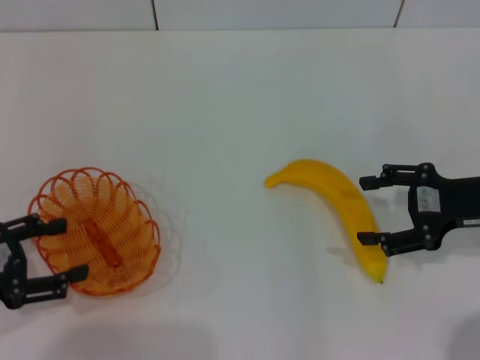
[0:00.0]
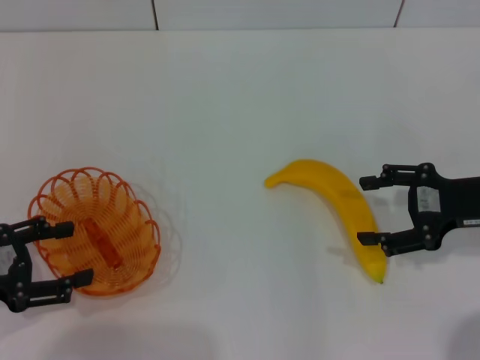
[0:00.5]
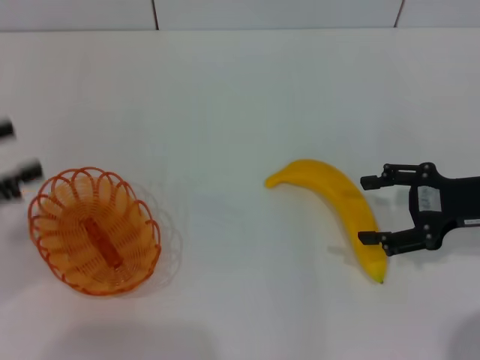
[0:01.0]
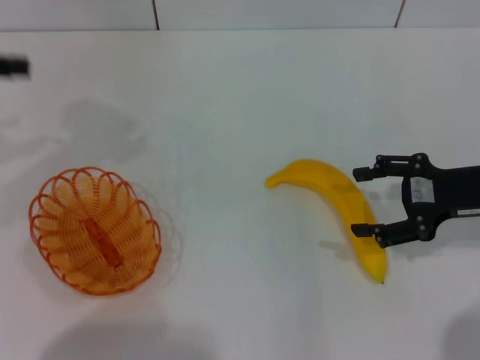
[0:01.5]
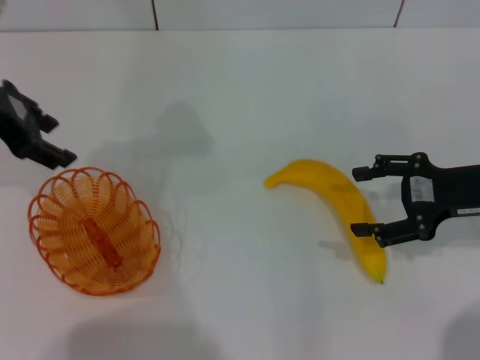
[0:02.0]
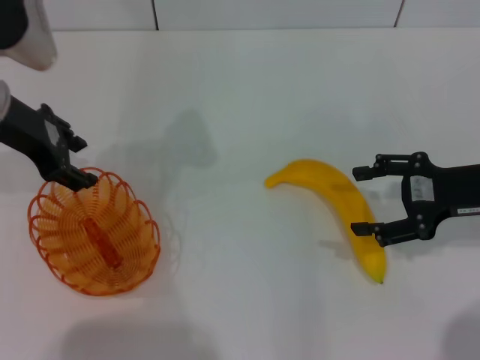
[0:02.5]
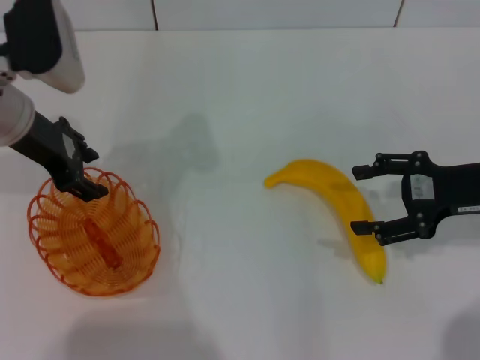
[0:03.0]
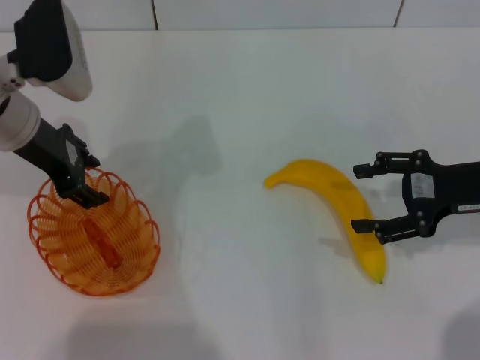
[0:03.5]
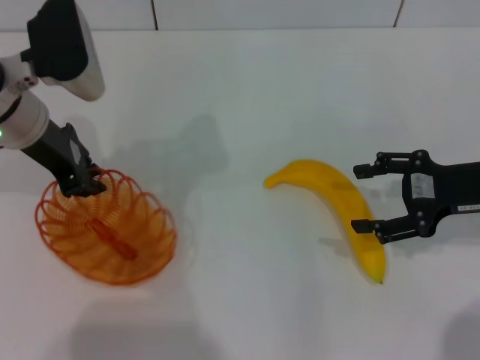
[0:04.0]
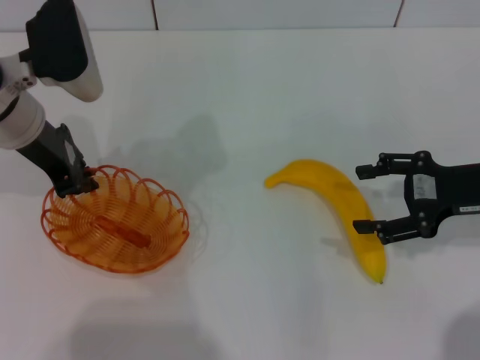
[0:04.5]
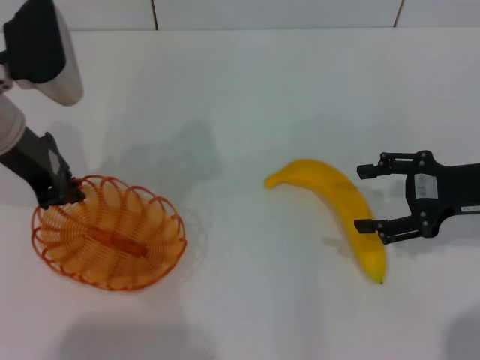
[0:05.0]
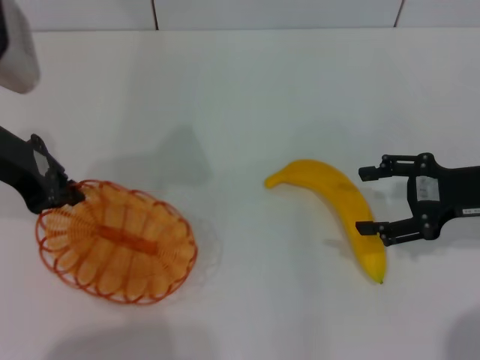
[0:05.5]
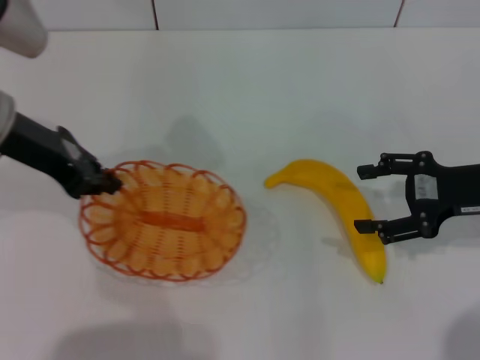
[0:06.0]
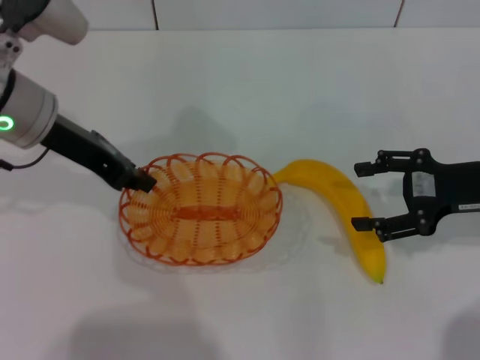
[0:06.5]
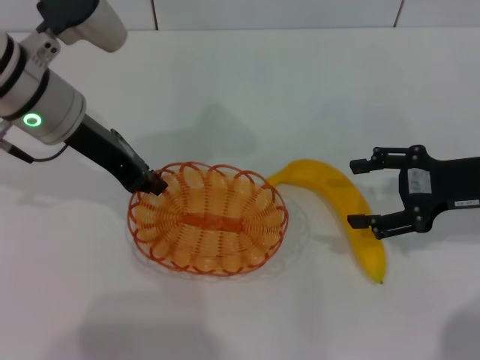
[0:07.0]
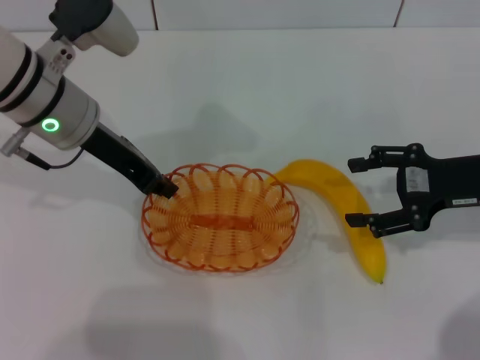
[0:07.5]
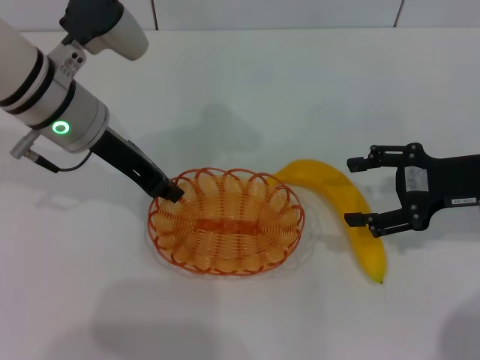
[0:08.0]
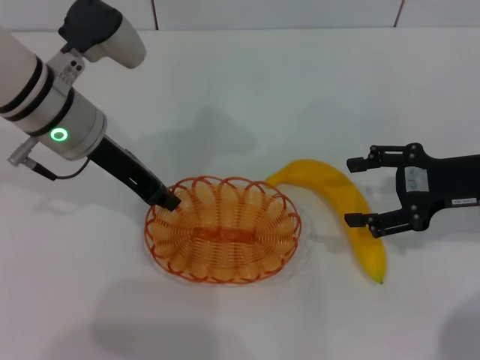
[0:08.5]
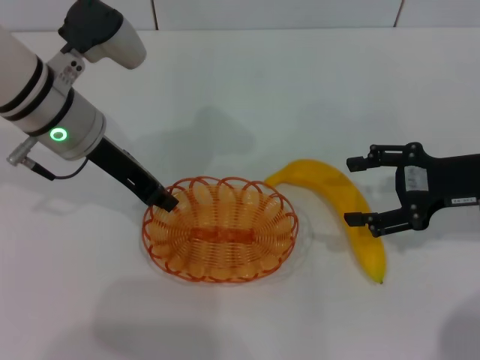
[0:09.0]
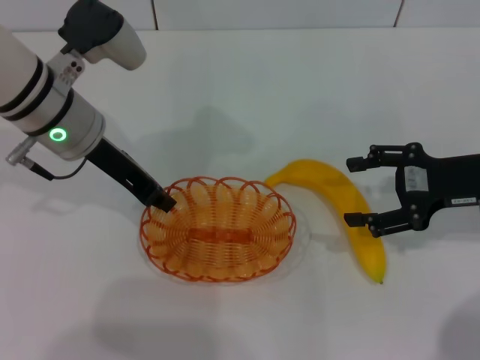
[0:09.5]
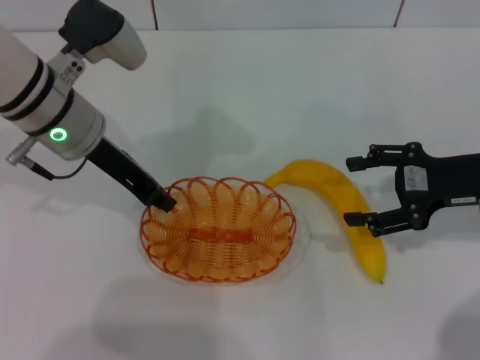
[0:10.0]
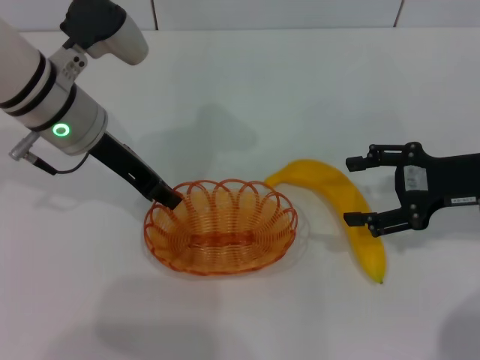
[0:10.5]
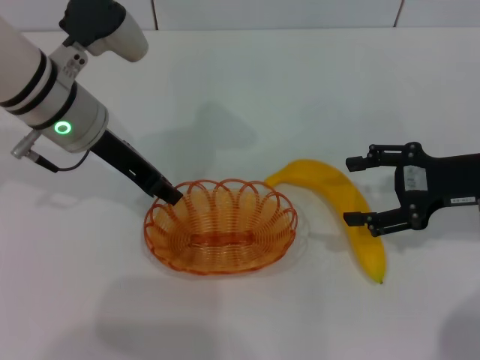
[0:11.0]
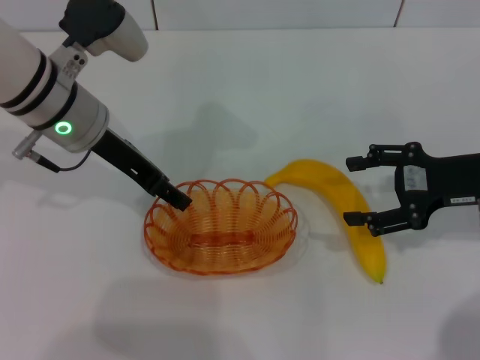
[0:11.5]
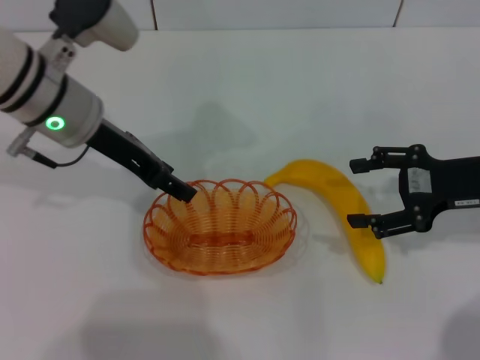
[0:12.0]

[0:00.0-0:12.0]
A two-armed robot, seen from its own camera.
Step, 0:00.0 to 0:05.0: Pick up the basket with the left gripper.
Step, 0:05.5 to 0:11.5: Place the basket in the center of view with the left gripper.
0:00.0 to 0:02.0: The left gripper is displaced forward, upward and to the right by some 25 cm.
0:02.0 to 0:04.0: The left gripper goes some 10 cm downward and to the right.
0:04.0 to 0:06.0: The left gripper ends up roughly 5 cm from where it was, and closes.
0:06.0 to 0:08.0: The left gripper is displaced to the right by about 5 cm.
0:08.0 to 0:10.0: The two grippers keep their place.
0:10.0 to 0:12.0: The left gripper opens up.

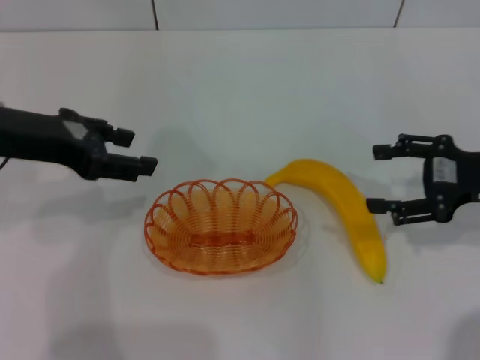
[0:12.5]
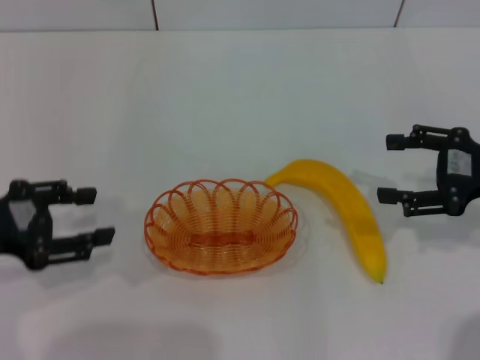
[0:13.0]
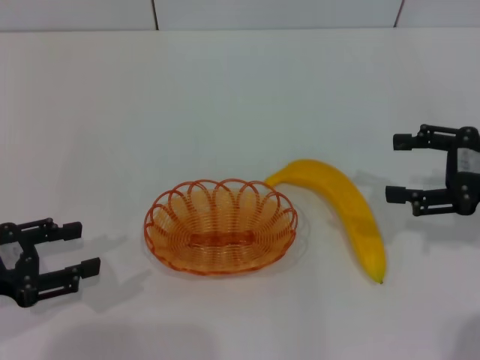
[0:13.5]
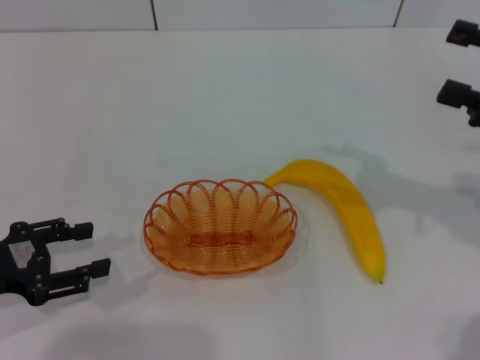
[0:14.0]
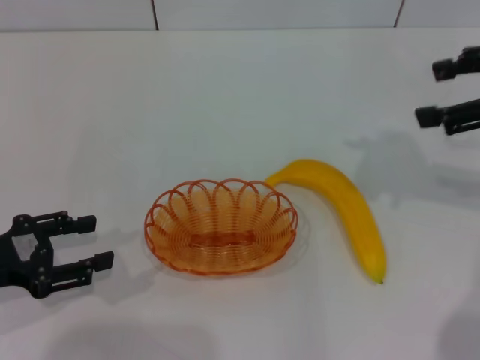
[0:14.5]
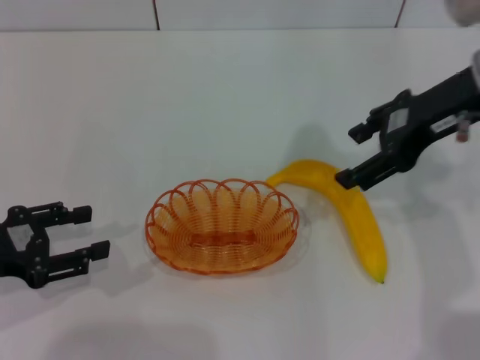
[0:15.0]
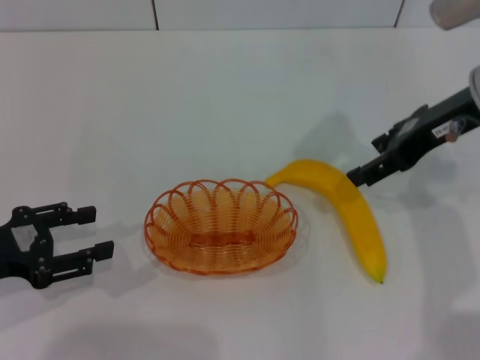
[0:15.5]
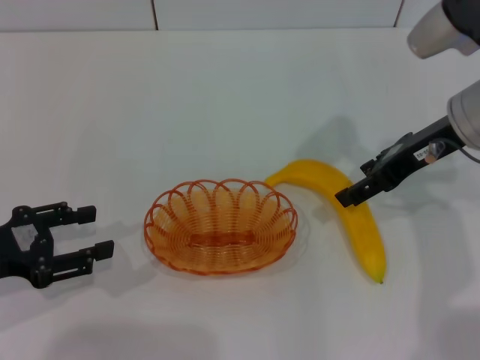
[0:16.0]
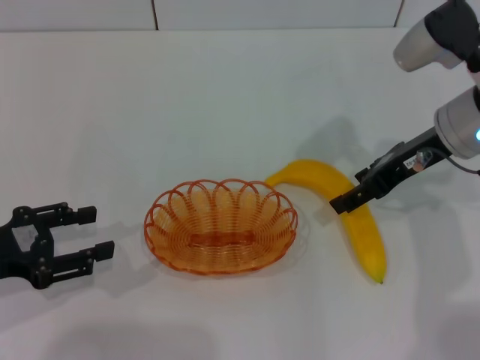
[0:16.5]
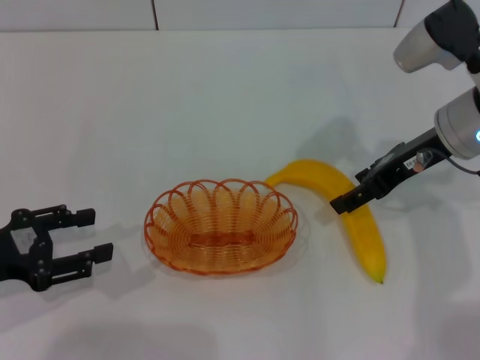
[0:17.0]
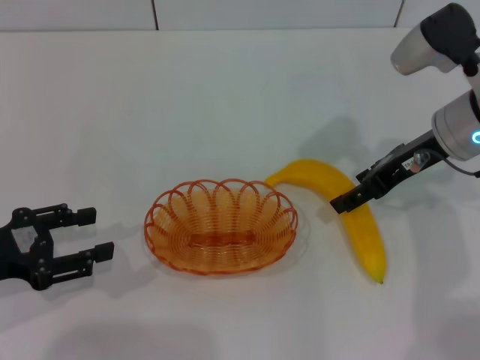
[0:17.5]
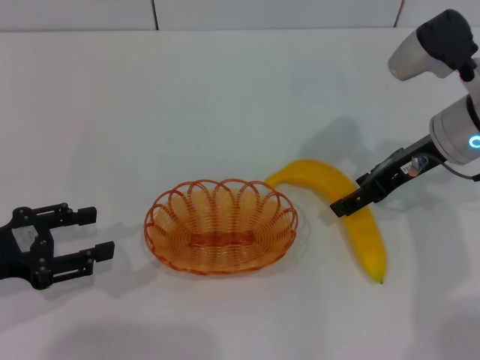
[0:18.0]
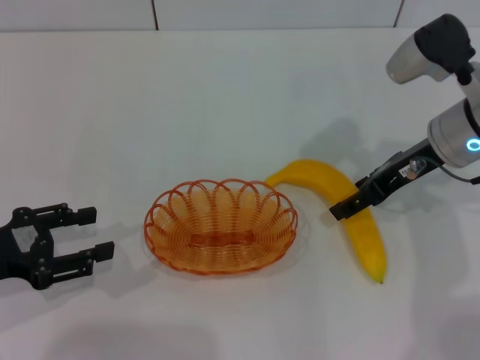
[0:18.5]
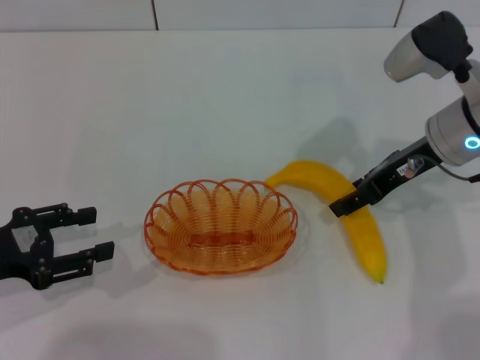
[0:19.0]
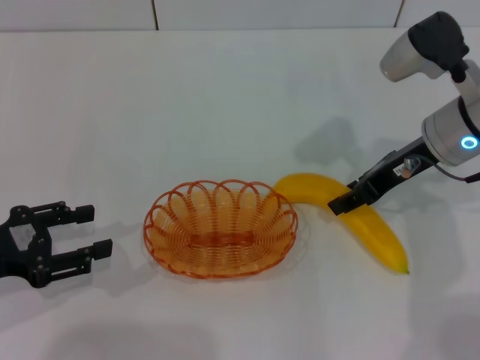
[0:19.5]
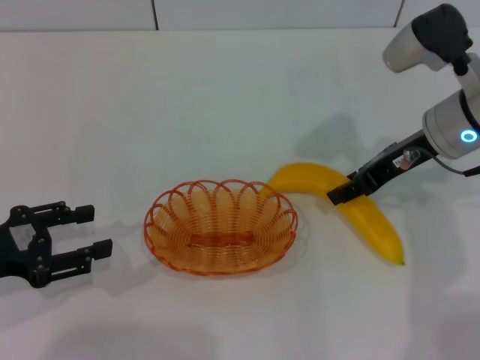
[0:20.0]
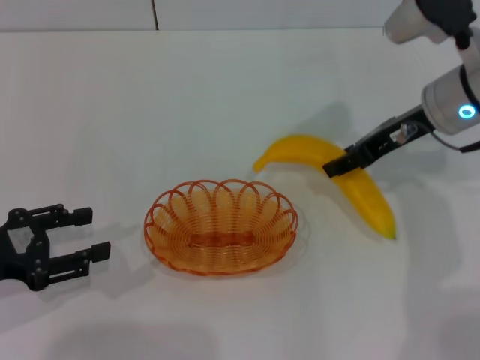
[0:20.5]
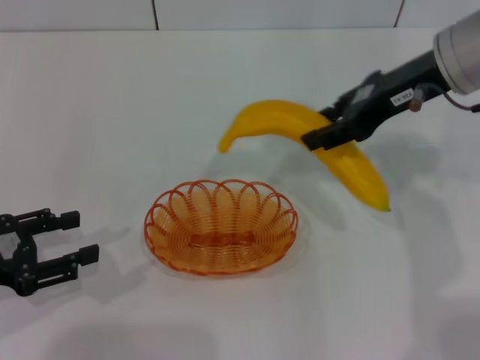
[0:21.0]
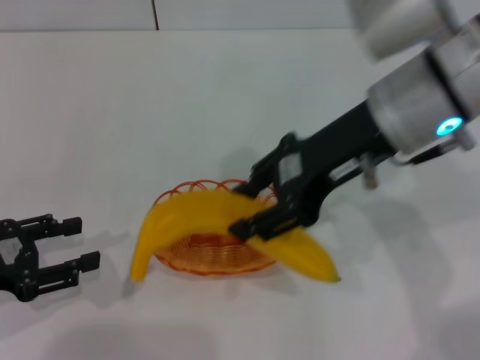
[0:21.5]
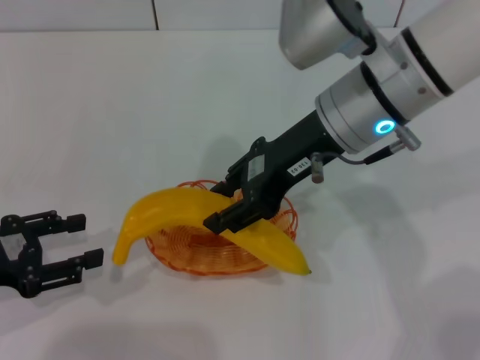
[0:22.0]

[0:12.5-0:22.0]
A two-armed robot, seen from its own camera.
Step, 0:12.5 to 0:20.0: Pick up the banana with the right gripper.
0:12.5 to 0:14.5: The right gripper goes about 15 cm upward; the left gripper goes roughly 15 cm downward, backward and to the left.
0:14.5 to 0:16.5: The right gripper travels downward and to the left by roughly 15 cm.
0:16.5 to 0:18.0: The two grippers keep their place.
0:18.0 to 0:20.0: The right gripper closes.
0:20.0 to 0:22.0: The right gripper moves to the left and upward, approximately 15 cm.

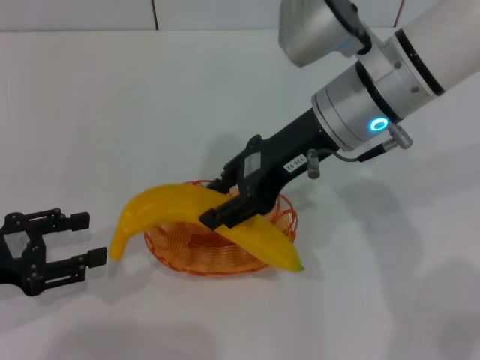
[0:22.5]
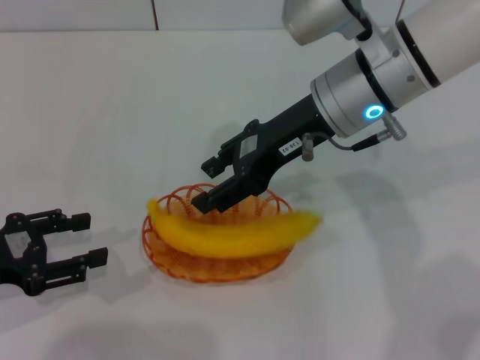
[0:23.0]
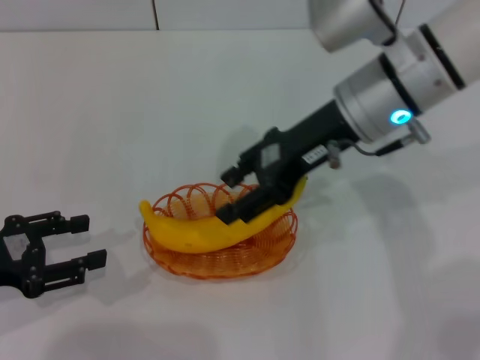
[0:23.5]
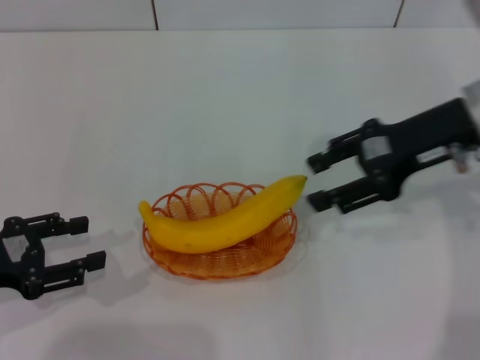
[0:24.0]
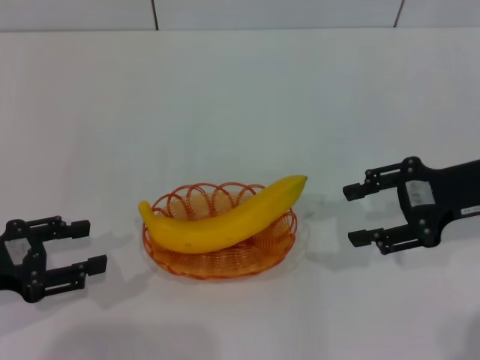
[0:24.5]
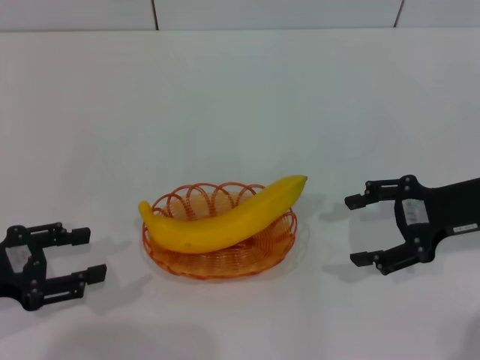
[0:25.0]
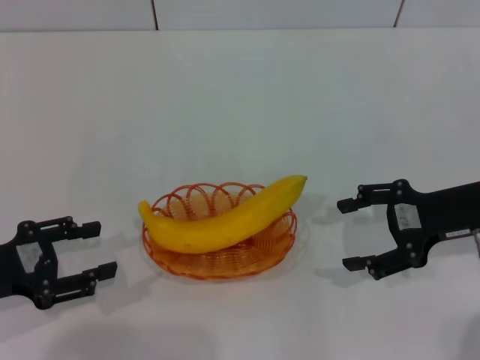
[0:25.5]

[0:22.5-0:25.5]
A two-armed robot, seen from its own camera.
0:22.5 to 0:24.0: The right gripper shifts about 15 cm to the right, and opens its fingers.
0:24.0 to 0:25.5: The right gripper goes roughly 10 cm downward, and opens.

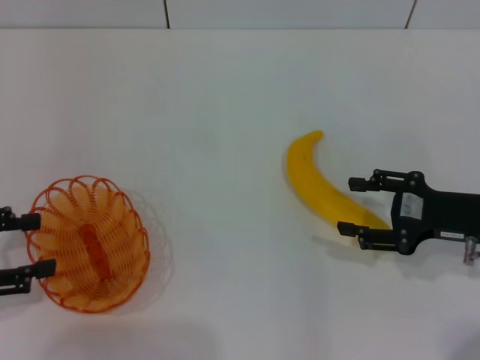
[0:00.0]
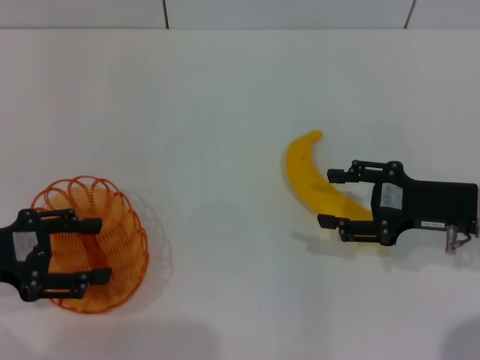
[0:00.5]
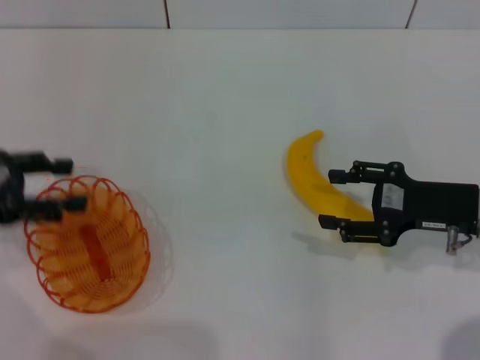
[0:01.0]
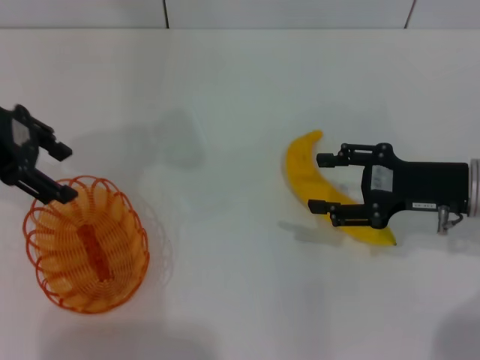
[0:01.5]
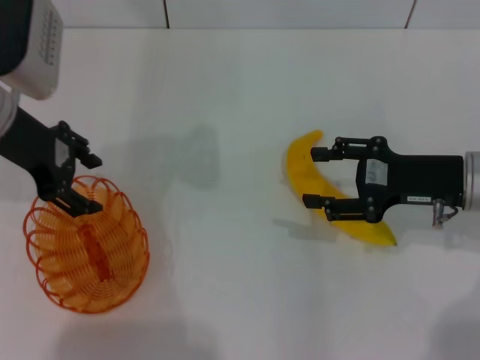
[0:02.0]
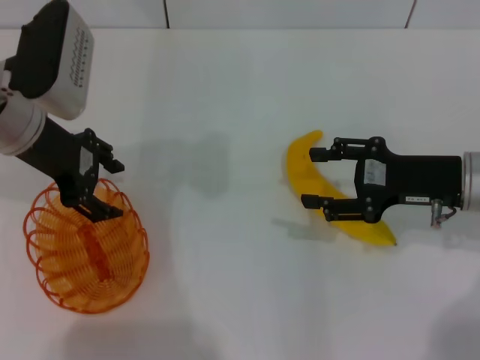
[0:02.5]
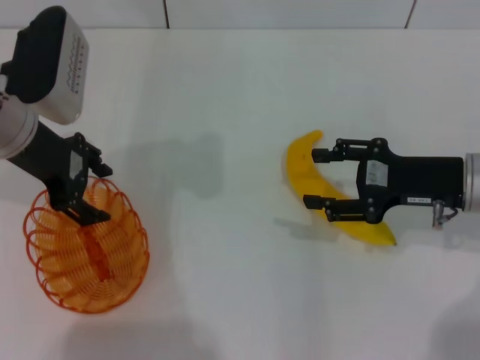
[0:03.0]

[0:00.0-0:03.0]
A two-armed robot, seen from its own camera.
0:00.0 to 0:01.5: The left gripper moves forward, upward and to the right, roughly 20 cm.
0:01.5 to 0:03.0: The left gripper is displaced to the right and downward by roughly 5 cm.
